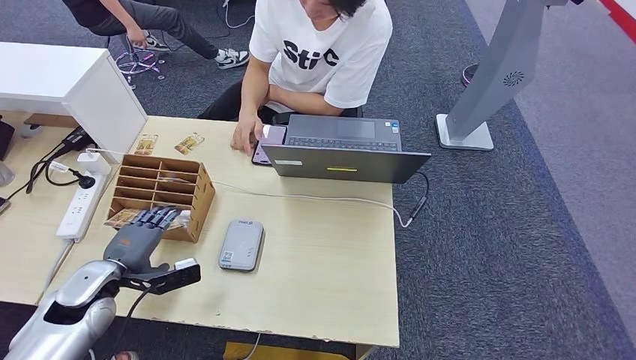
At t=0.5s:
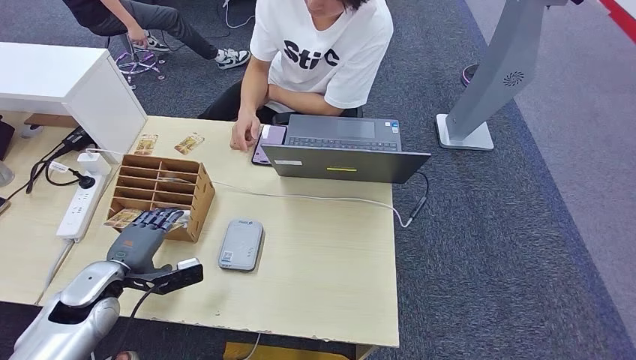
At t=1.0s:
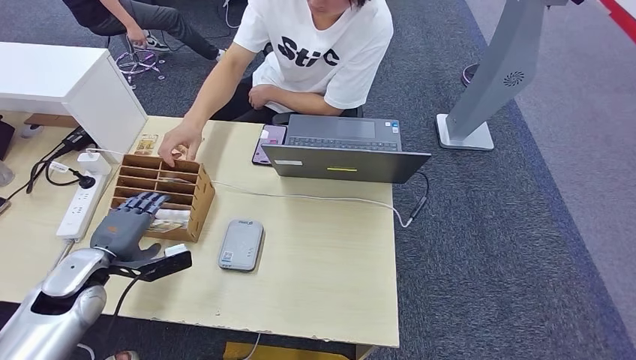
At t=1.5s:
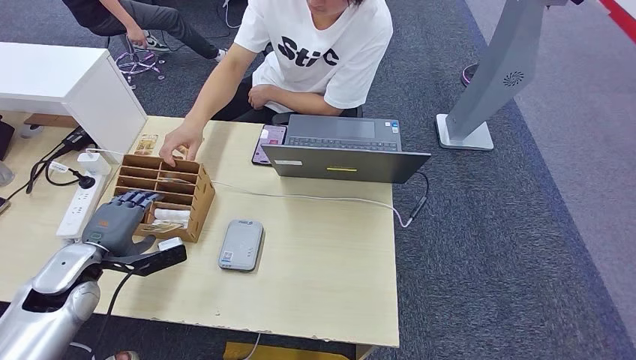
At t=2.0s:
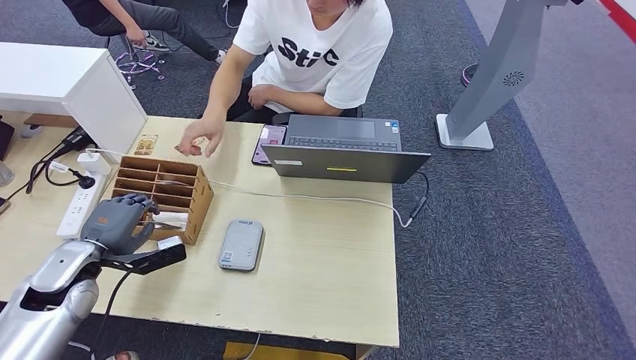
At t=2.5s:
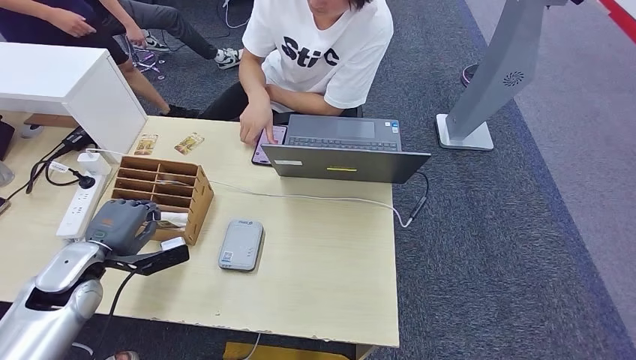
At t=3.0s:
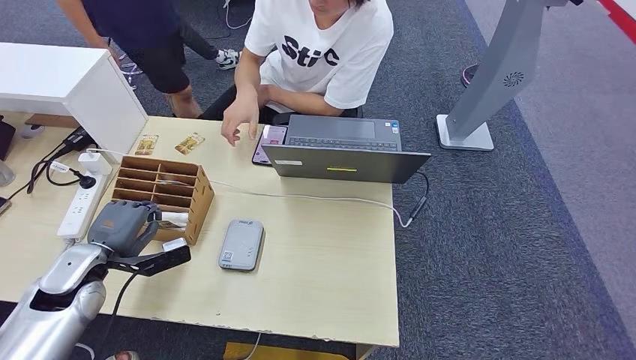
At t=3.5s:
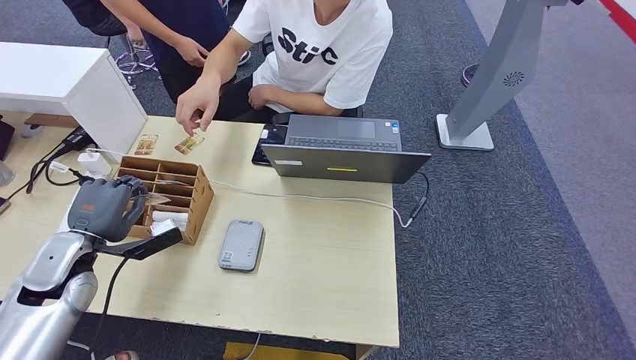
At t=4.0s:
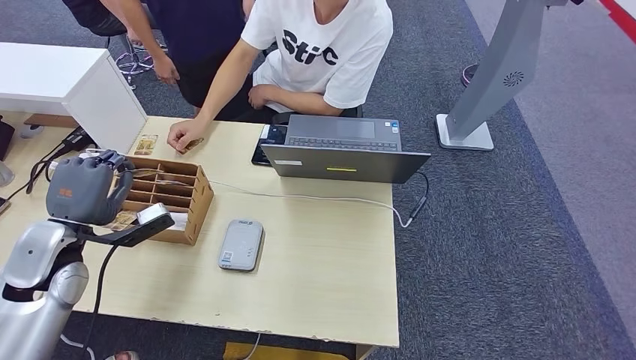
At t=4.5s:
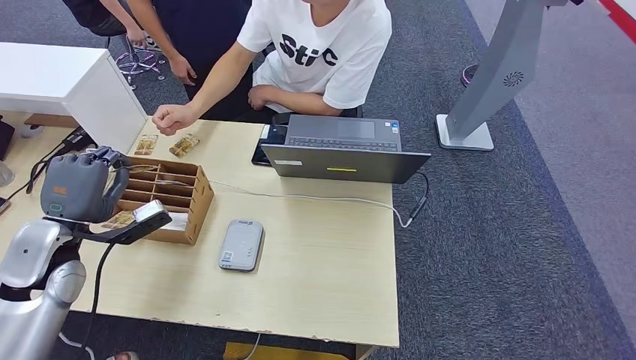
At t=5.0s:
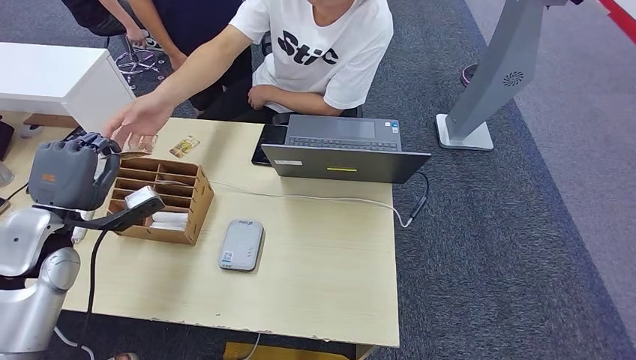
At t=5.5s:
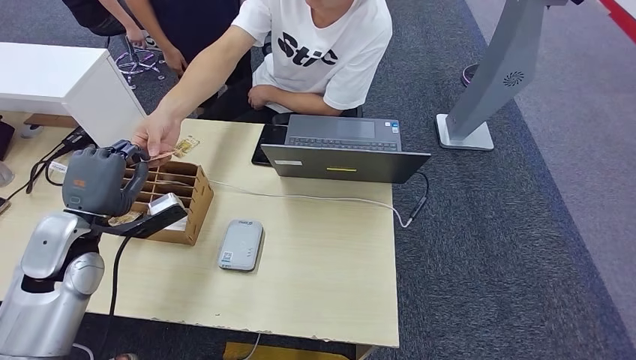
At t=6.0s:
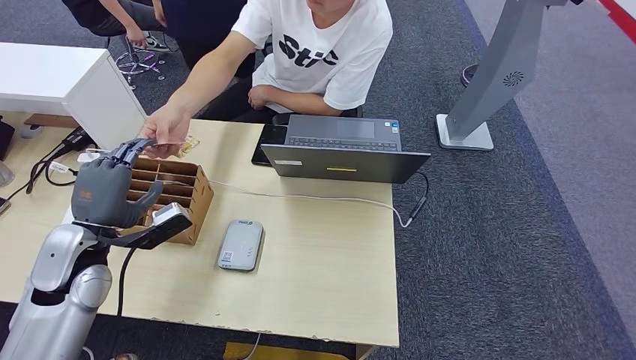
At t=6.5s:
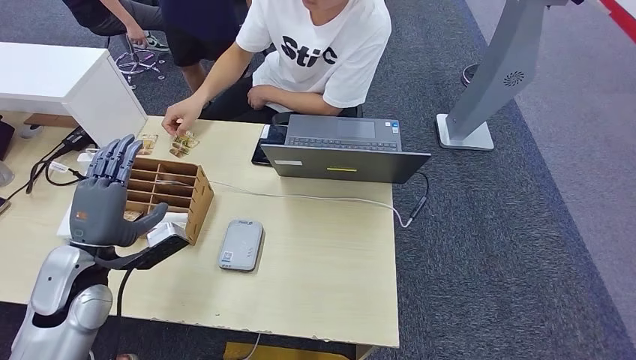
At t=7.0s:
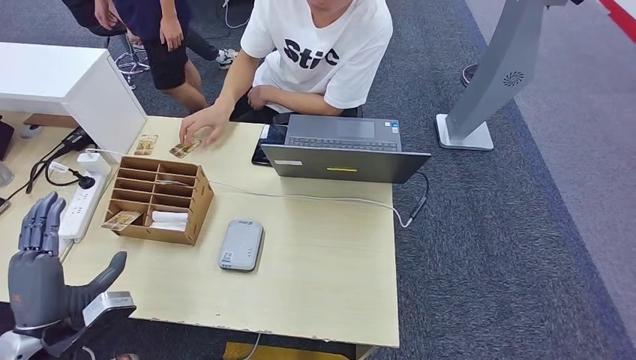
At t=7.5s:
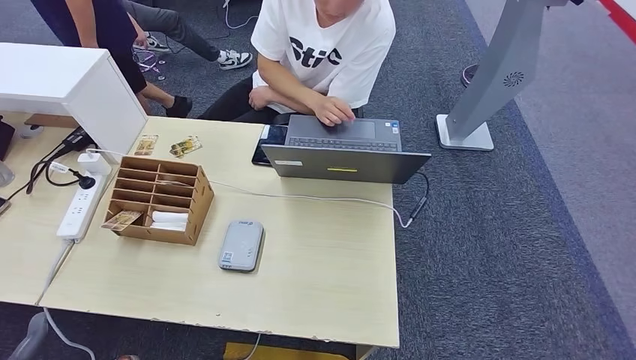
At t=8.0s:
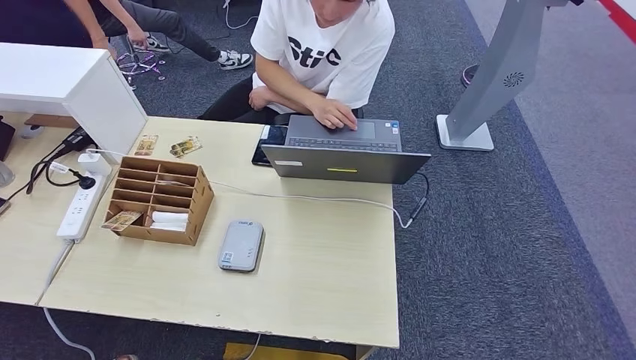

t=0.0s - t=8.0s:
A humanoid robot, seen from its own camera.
Step, t=0.0s - t=4.0s: Pick up the room key from the key card box.
Step, t=4.5s - t=8.0s: Hand the room key to the person.
t=0.0s - t=2.0s: The hands stay close to where they were, moving slightly.
t=2.0s - t=4.0s: The left hand shifts roughly 5 cm upward.
t=4.0s - t=6.0s: There are only small adjustments of the hands.
t=6.0s - t=8.0s: The left hand is displaced backward, downward and to the left by approximately 40 cm.
